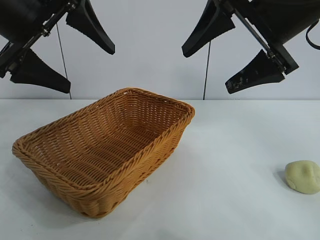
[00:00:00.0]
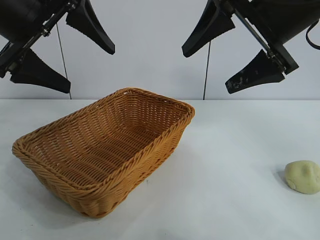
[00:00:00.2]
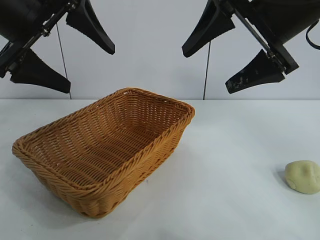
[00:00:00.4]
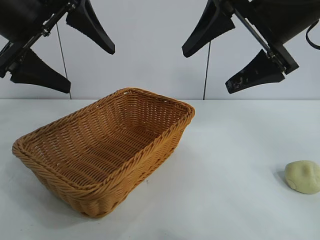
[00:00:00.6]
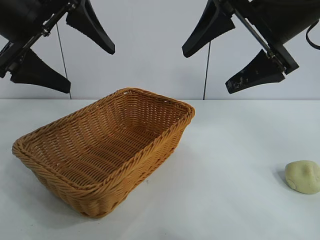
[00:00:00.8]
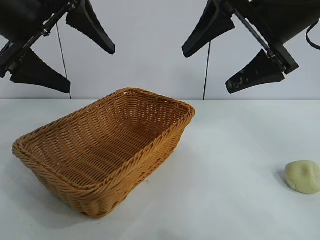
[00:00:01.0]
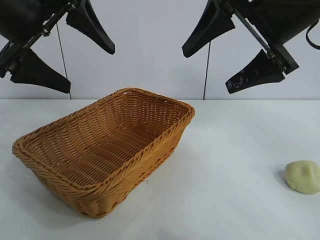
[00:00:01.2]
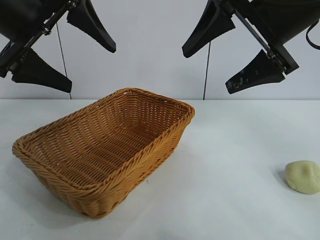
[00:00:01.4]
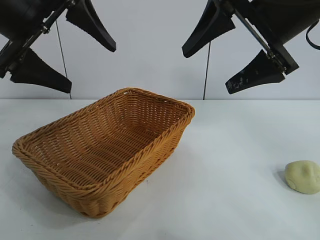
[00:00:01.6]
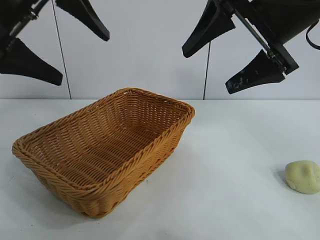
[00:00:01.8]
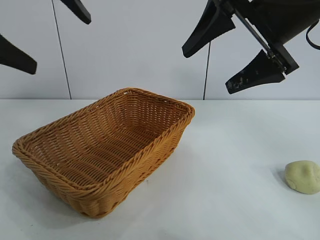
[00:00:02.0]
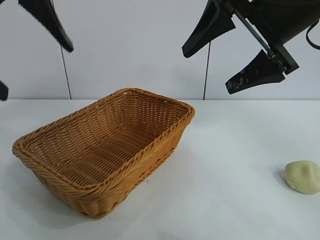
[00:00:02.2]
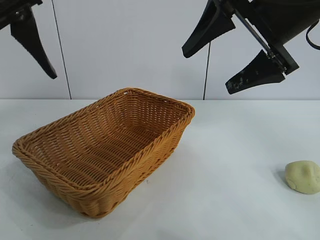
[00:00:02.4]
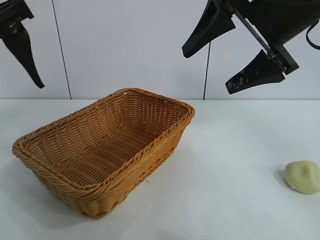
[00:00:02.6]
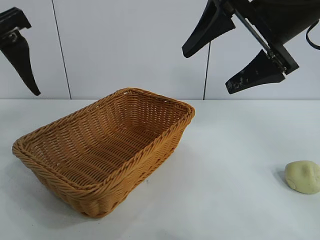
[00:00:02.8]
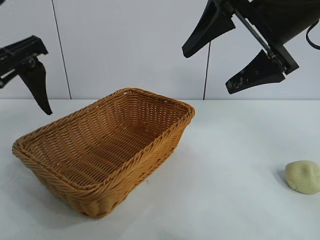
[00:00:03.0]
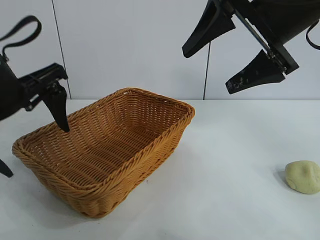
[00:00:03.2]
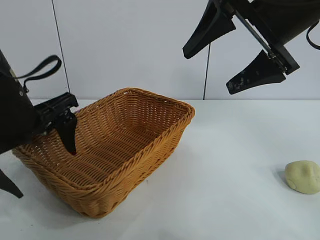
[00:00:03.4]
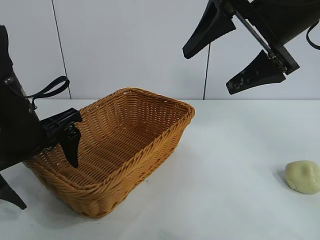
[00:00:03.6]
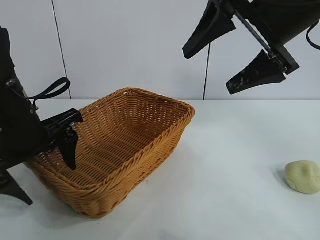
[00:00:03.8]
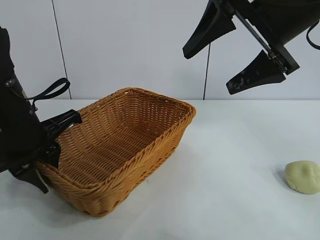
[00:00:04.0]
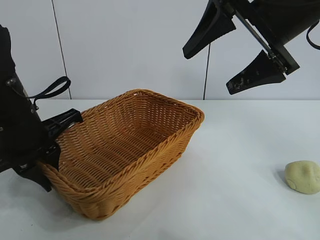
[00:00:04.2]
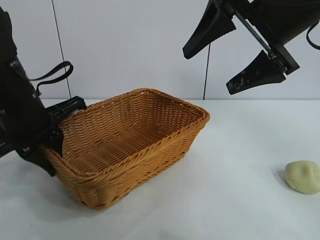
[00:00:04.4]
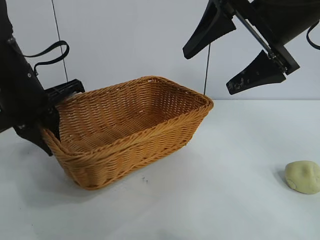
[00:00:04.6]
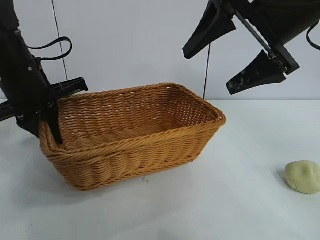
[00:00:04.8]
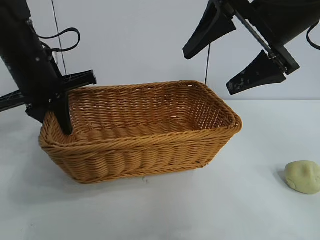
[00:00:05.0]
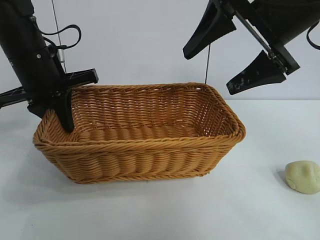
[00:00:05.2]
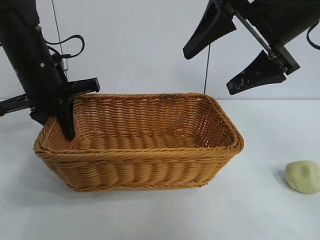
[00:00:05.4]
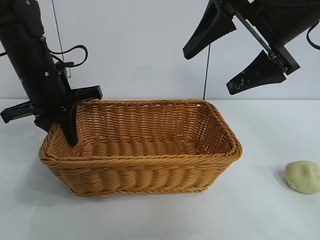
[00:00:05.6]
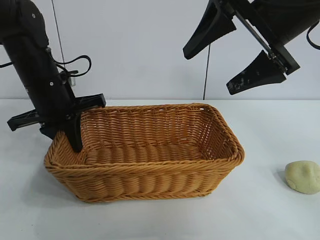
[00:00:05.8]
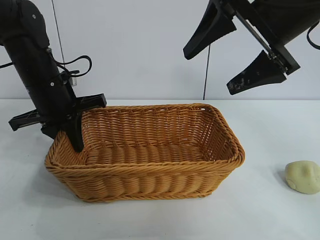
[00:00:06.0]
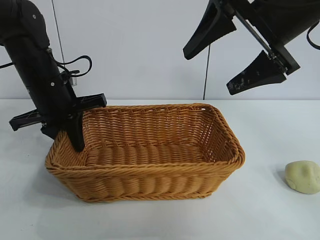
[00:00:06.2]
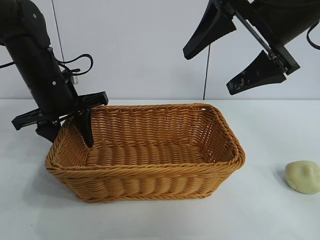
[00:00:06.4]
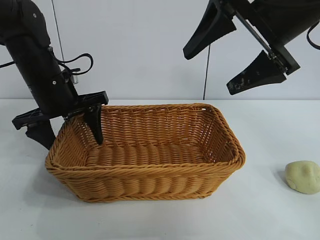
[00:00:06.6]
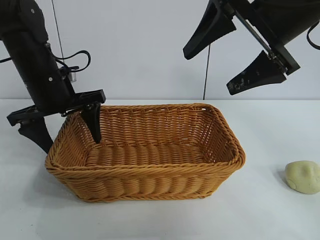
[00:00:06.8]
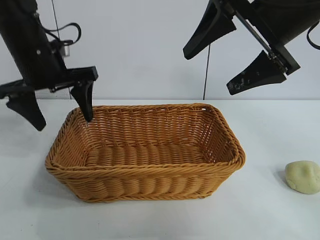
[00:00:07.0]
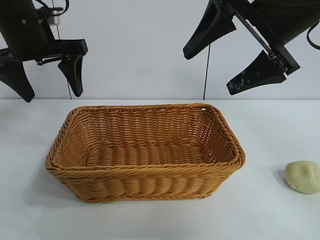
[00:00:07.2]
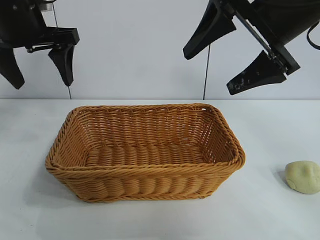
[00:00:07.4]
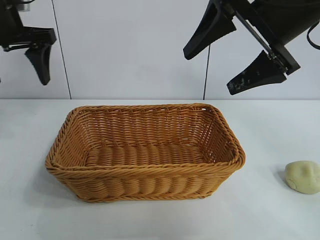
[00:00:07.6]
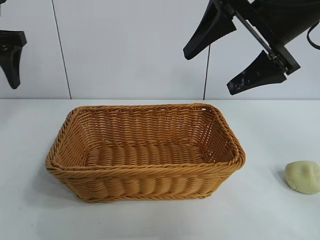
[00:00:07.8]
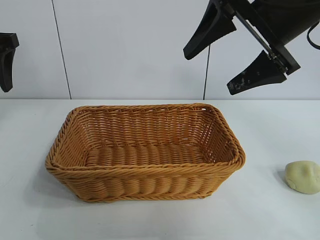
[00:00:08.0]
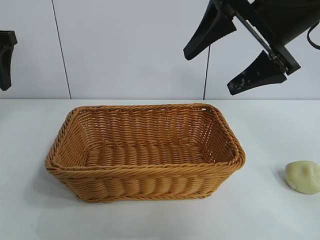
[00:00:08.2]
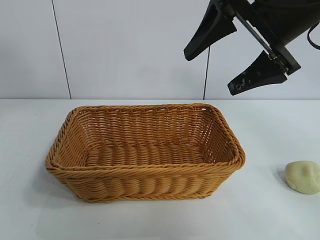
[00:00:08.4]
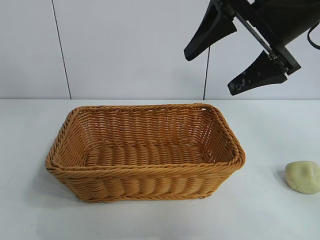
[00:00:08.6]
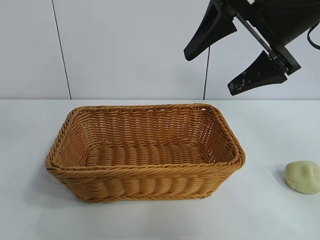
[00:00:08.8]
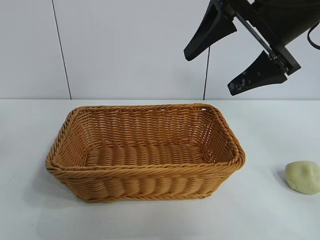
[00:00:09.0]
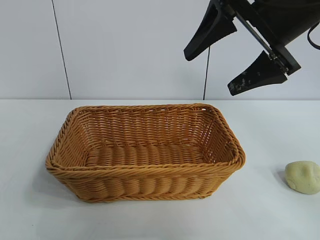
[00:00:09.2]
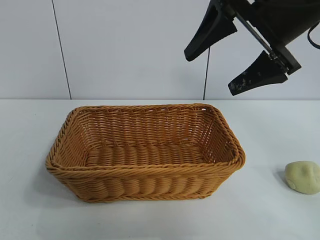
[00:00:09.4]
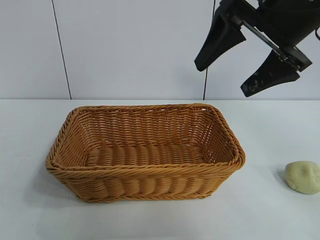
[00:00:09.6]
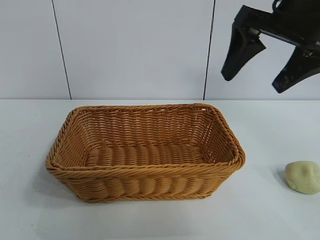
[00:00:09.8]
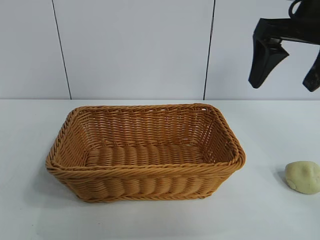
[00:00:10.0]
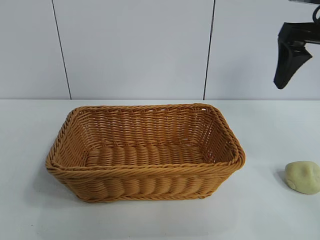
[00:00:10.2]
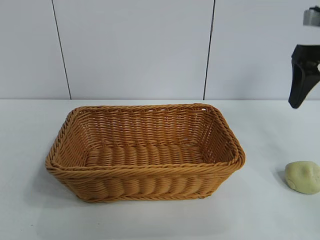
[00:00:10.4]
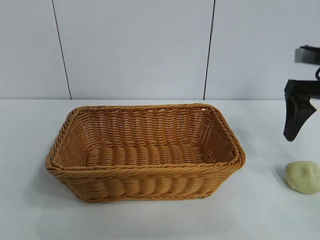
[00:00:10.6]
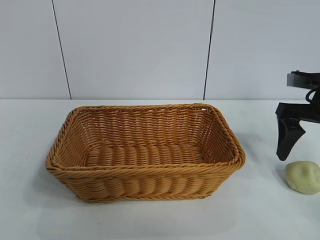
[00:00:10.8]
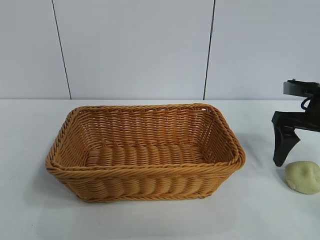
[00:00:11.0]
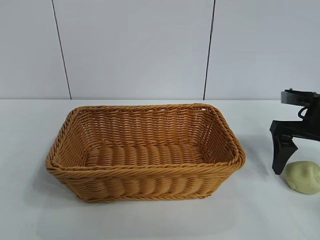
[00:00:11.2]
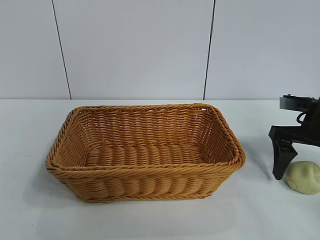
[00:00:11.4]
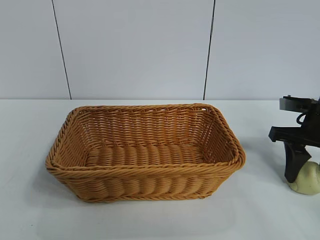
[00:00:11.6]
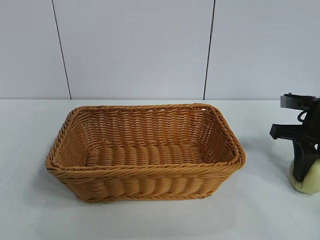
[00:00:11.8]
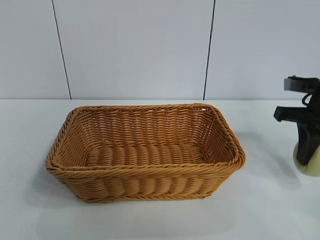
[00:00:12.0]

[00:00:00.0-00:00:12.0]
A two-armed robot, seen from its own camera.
Task of the whole recording: pick up the egg yolk pastry and put it into the basket.
Step, 00:00:01.4 to 00:00:04.0: Grasp the basket with left gripper.
Step, 00:00:04.2 to 00:00:06.2: Place the basket in the center of view with left gripper.
Step, 00:00:06.6 to 00:00:11.6: Grasp egg yolk pastry with right gripper.

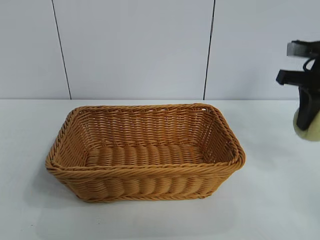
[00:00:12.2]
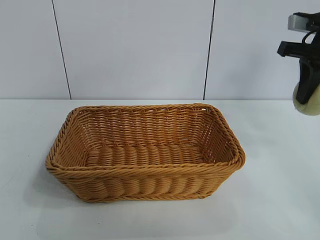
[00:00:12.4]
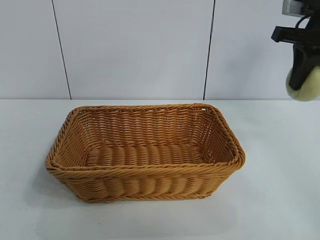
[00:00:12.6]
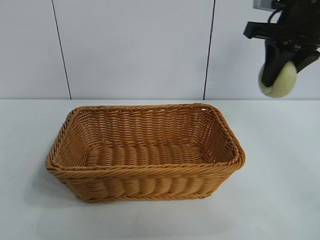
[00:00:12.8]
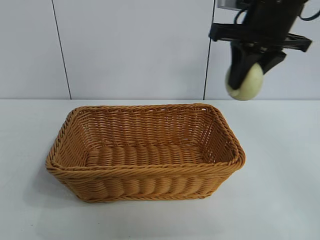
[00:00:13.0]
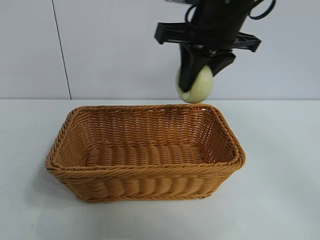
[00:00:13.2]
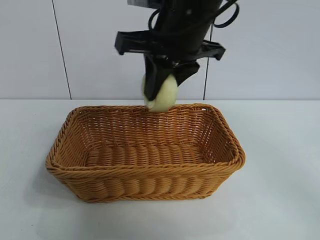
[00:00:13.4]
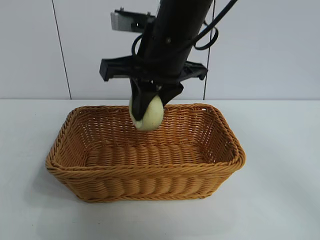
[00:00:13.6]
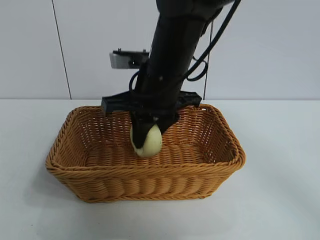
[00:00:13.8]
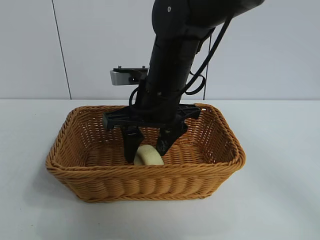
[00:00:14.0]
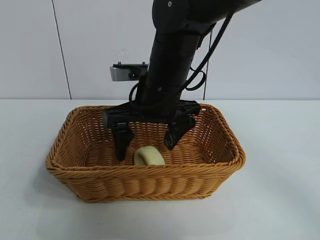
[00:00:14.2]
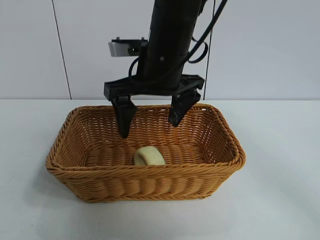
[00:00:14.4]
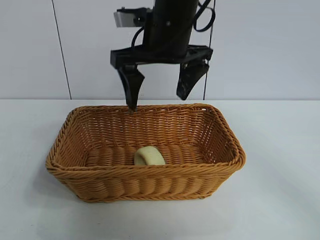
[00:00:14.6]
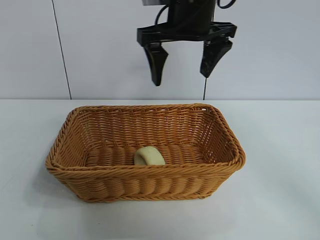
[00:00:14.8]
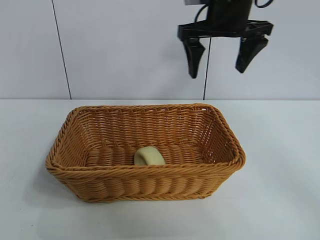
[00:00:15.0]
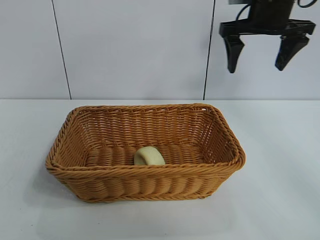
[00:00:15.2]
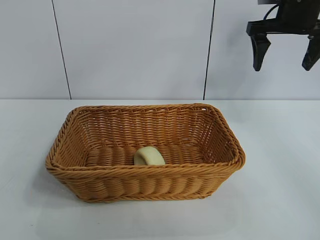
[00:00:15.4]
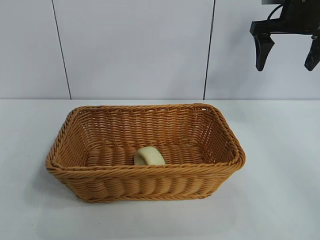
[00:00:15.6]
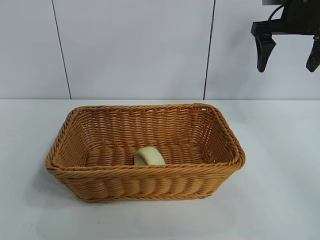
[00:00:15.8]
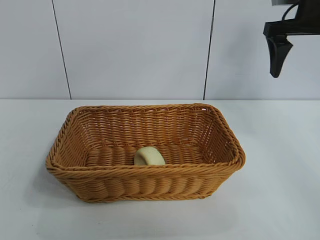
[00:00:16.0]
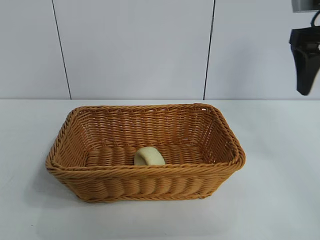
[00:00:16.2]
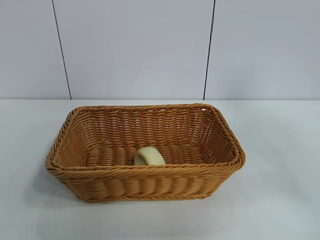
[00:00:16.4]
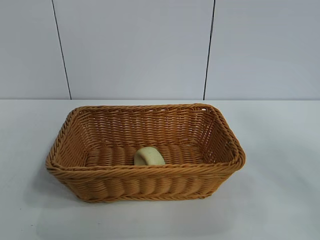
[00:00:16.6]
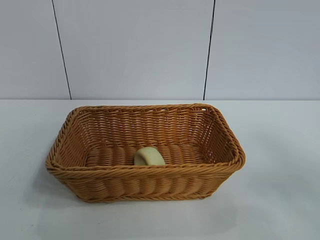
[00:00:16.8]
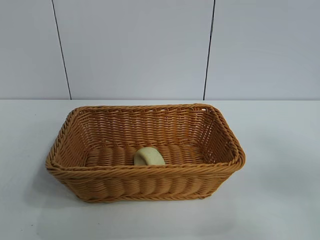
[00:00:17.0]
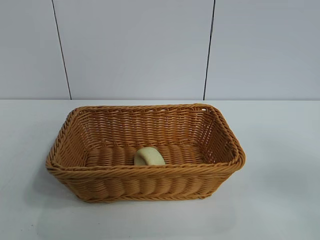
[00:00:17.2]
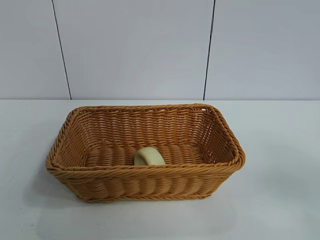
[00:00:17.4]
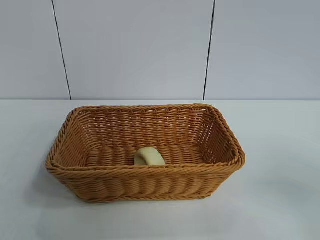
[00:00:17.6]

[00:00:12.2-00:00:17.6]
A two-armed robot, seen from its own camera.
Task of the whole recording: pick up the egg yolk pastry and put it into the basket.
Step, 00:00:12.2 to 00:00:13.8: Place the egg yolk pastry in the basket with right gripper.
